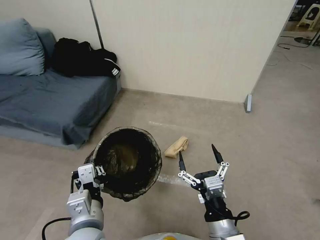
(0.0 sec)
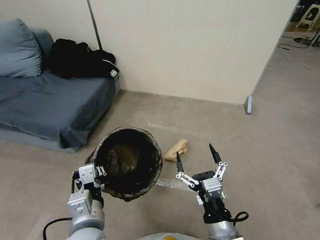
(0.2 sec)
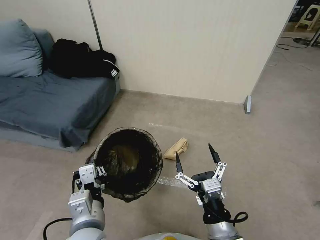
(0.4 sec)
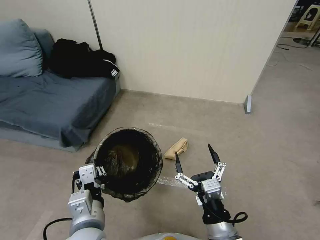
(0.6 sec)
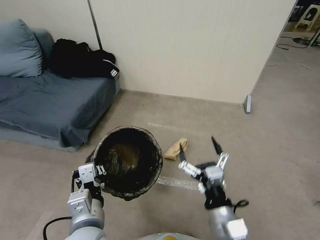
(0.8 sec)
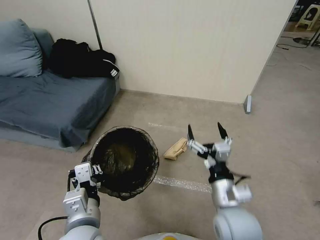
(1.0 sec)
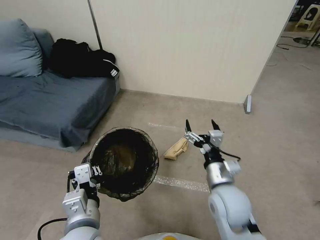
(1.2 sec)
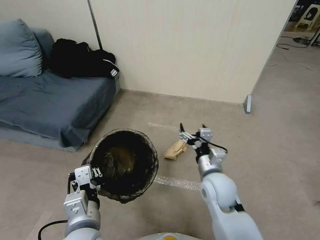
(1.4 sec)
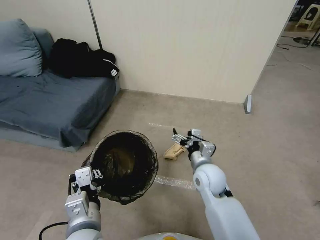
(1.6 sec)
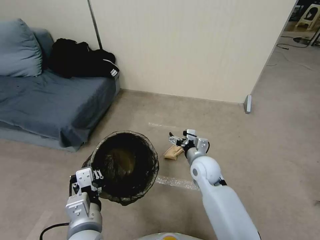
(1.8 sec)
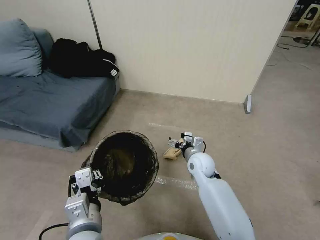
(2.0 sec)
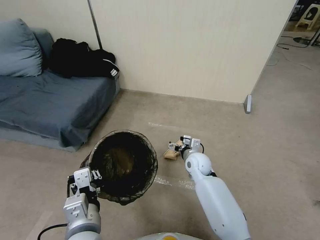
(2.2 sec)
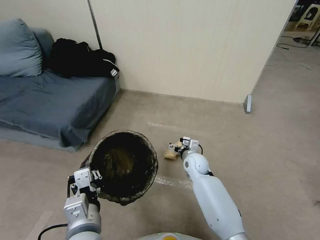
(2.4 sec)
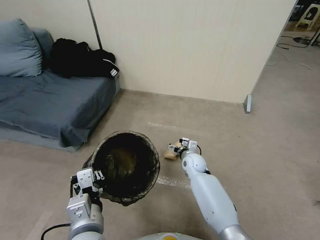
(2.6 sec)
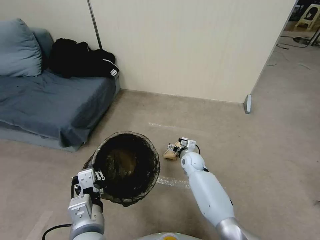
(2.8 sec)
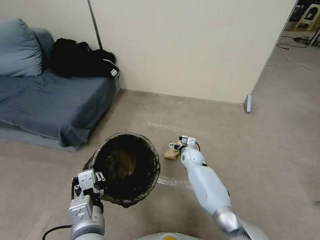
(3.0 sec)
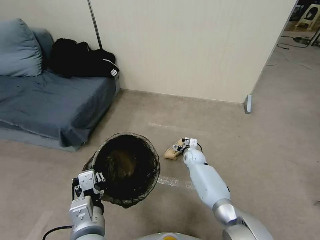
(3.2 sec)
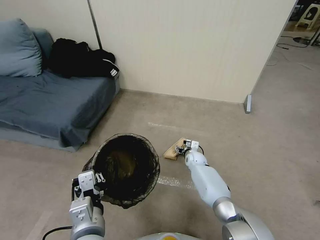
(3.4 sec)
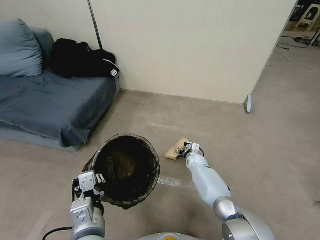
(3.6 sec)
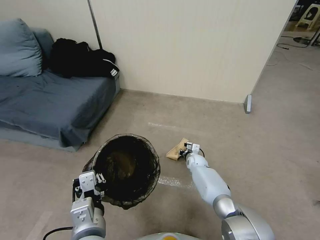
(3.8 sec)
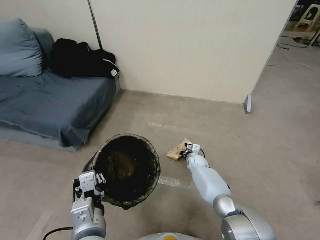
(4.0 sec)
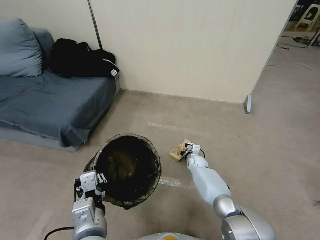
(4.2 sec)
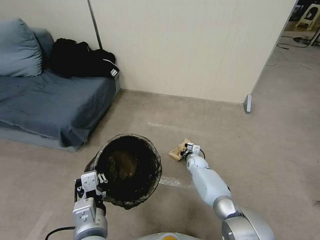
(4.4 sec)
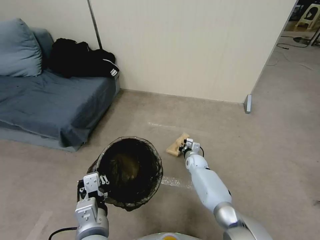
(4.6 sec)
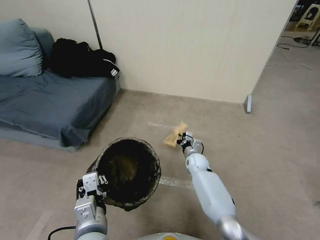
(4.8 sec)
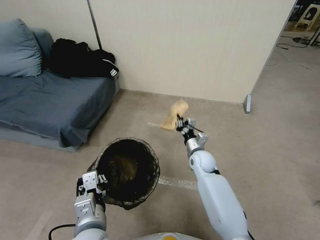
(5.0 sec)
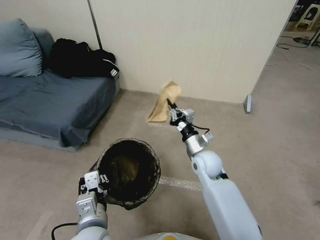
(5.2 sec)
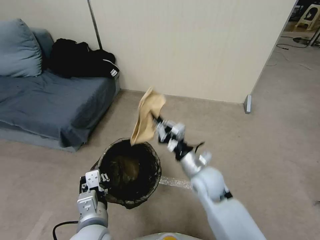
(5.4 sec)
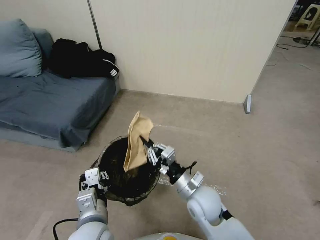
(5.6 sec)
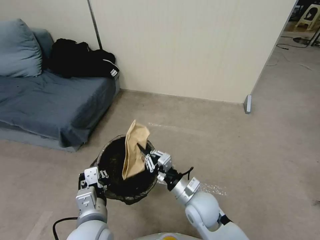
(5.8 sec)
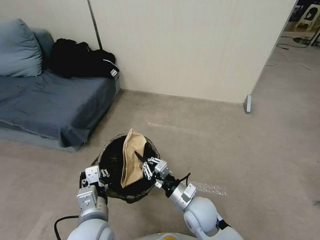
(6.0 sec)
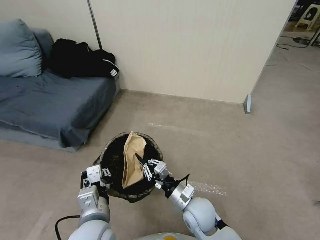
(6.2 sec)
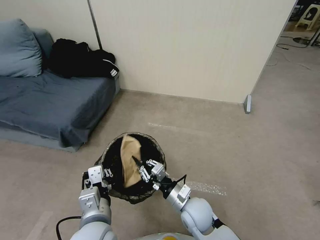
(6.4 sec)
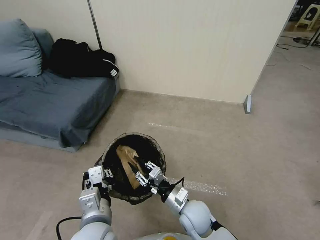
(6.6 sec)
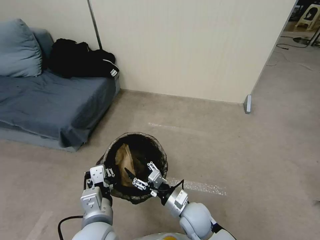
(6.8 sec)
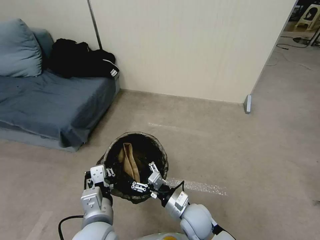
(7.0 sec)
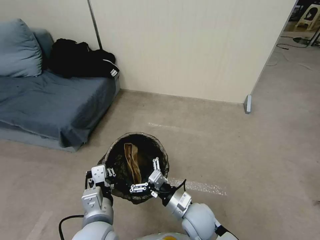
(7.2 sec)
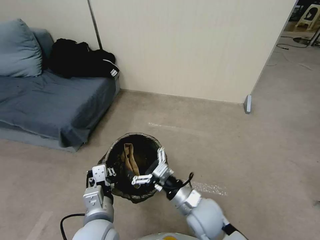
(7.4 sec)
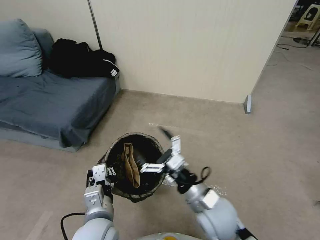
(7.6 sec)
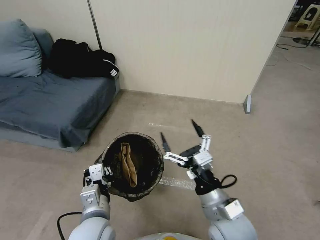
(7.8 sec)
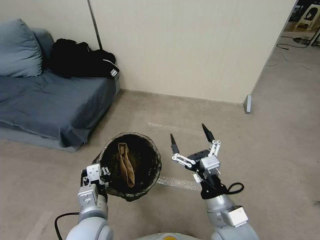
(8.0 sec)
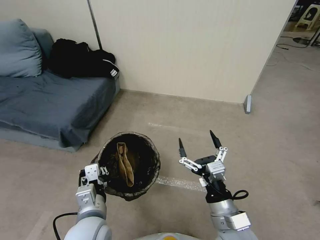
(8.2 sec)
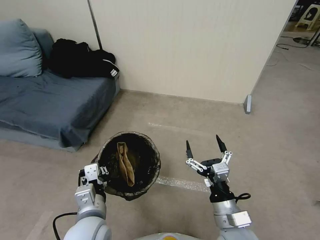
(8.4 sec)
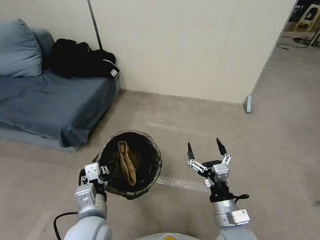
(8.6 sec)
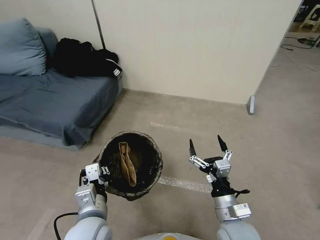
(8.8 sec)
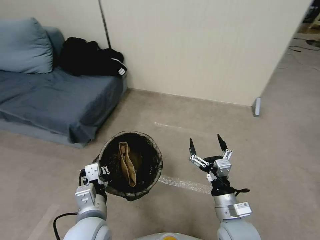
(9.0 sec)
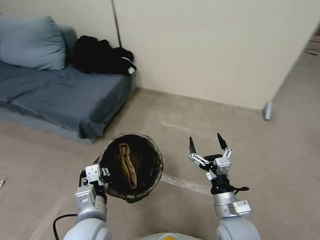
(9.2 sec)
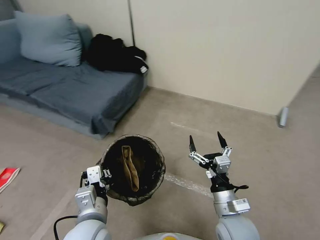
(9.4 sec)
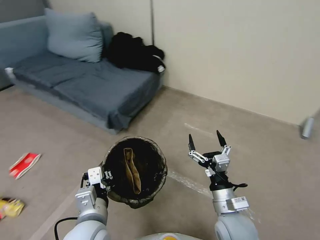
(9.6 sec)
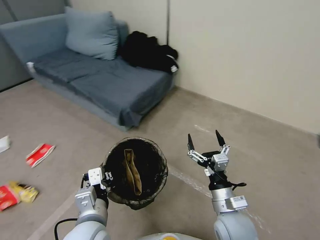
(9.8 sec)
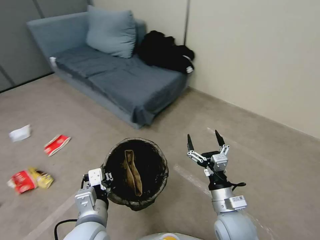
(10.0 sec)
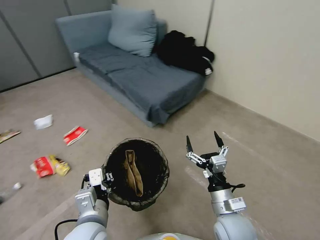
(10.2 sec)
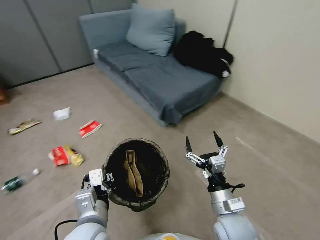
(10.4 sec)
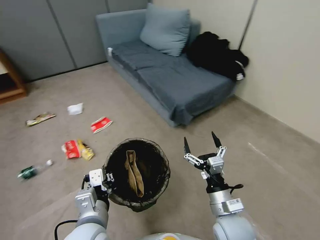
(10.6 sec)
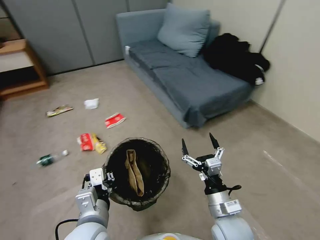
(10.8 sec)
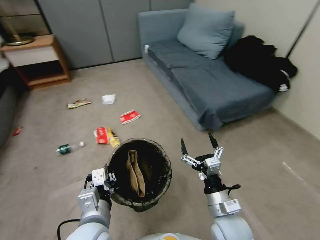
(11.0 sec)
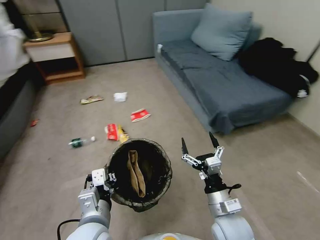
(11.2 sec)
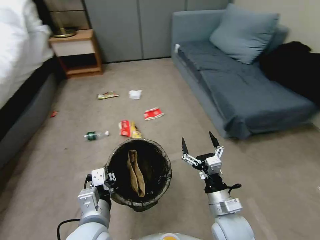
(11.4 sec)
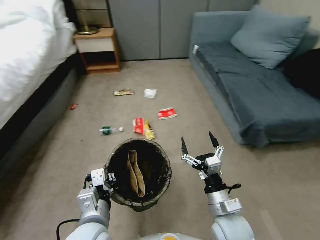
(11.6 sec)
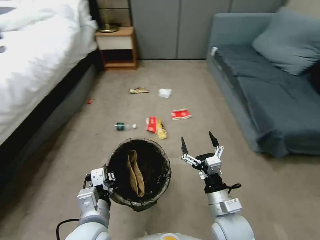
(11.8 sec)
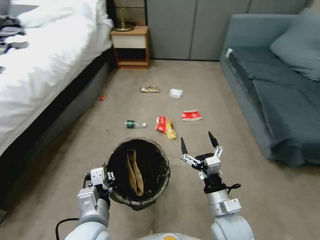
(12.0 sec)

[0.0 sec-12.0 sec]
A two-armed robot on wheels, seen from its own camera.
Task of the whole recording: Pick up the trash bin, then pick up the garbage from the floor and place it into the trash bin.
0.0 sec to 1.6 sec: The right gripper shifts approximately 20 cm forward.
1.6 sec to 3.0 sec: The right gripper goes some 20 cm forward and downward.
3.0 sec to 4.4 sec: The right gripper moves downward, some 5 cm, and closes.
4.4 sec to 6.0 sec: The right gripper moves backward and upward, roughly 30 cm.
6.0 sec to 7.6 sec: The right gripper is displaced upward by some 10 cm, and opens.
7.6 sec to 9.0 sec: The right gripper is displaced to the right by roughly 5 cm.

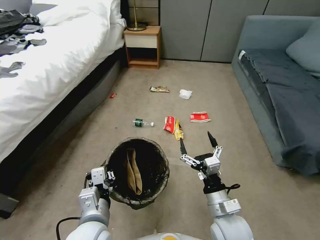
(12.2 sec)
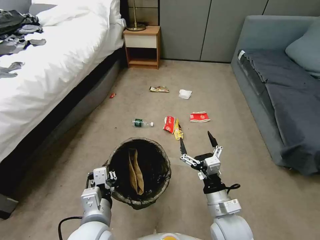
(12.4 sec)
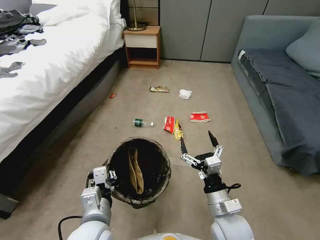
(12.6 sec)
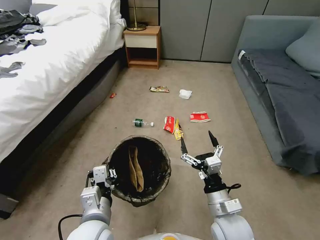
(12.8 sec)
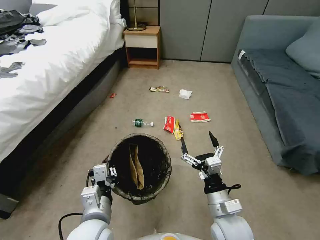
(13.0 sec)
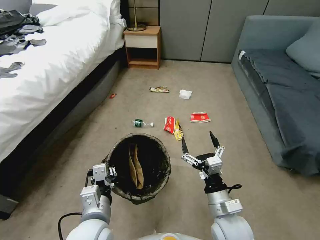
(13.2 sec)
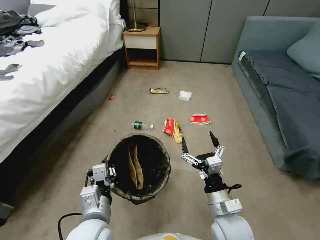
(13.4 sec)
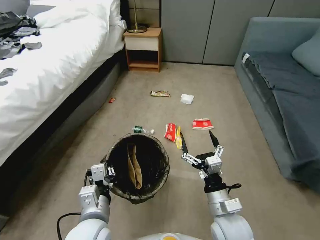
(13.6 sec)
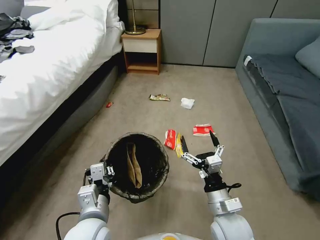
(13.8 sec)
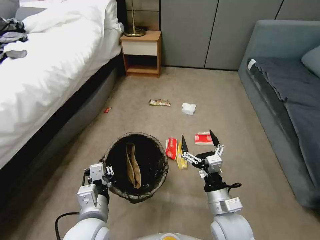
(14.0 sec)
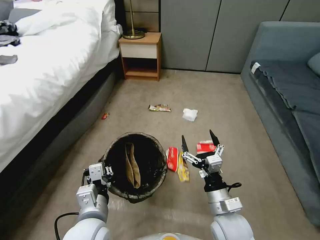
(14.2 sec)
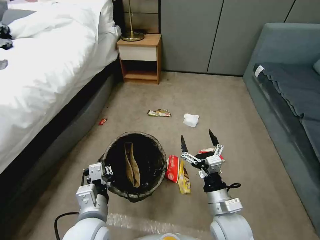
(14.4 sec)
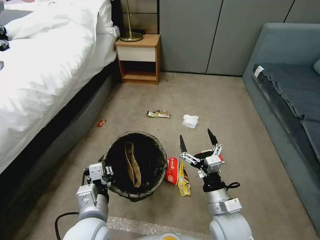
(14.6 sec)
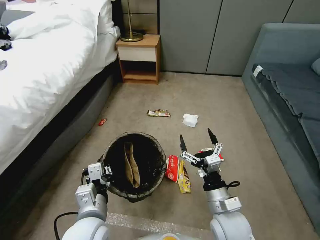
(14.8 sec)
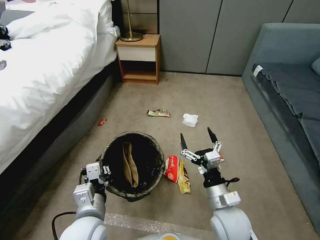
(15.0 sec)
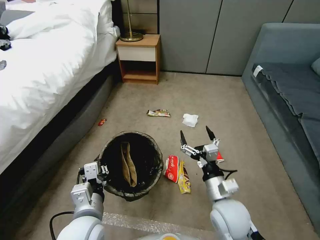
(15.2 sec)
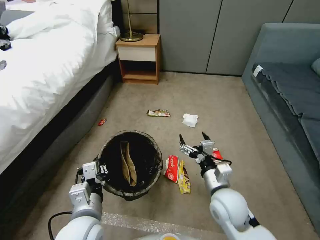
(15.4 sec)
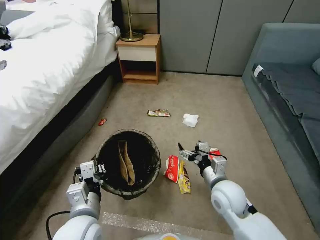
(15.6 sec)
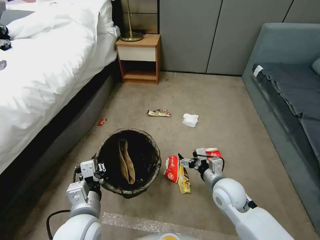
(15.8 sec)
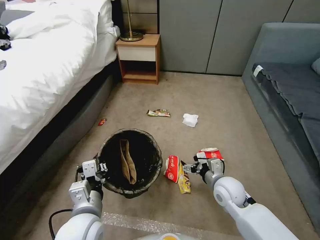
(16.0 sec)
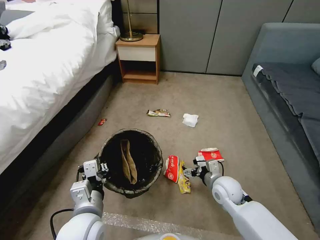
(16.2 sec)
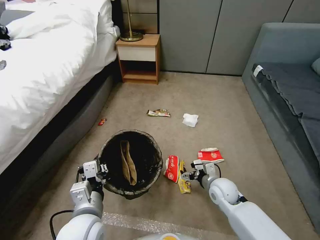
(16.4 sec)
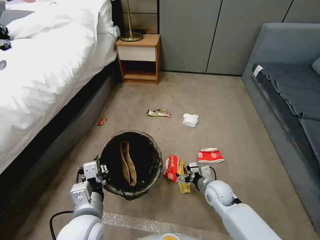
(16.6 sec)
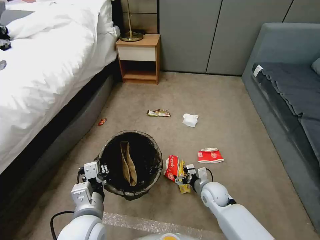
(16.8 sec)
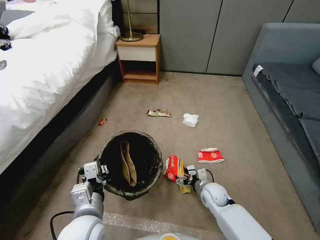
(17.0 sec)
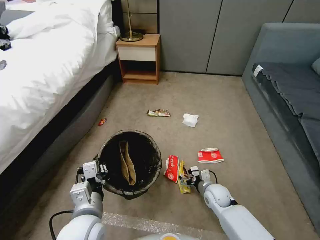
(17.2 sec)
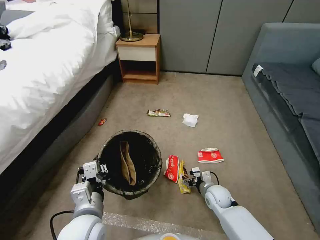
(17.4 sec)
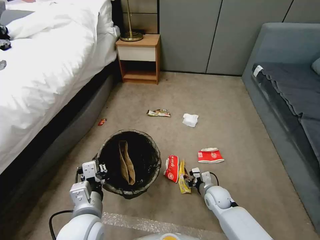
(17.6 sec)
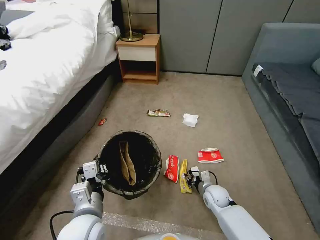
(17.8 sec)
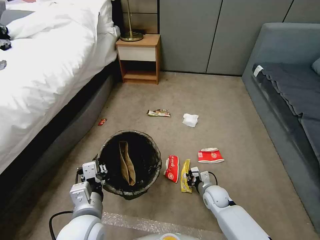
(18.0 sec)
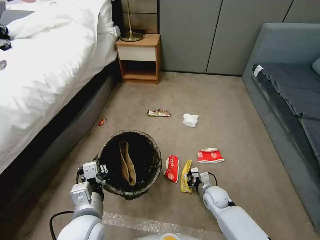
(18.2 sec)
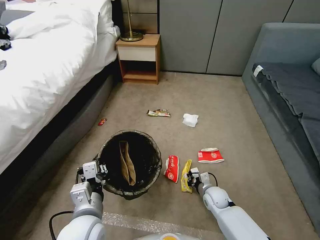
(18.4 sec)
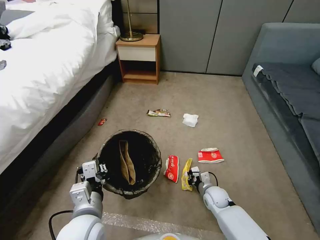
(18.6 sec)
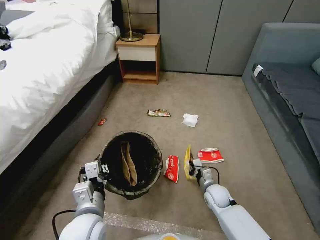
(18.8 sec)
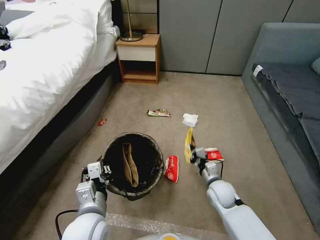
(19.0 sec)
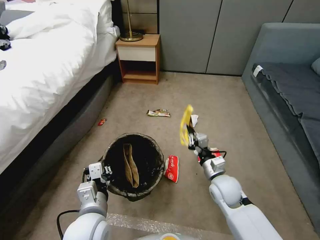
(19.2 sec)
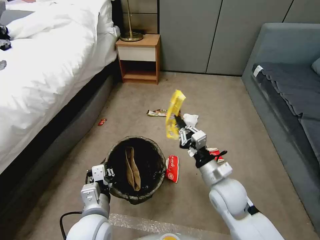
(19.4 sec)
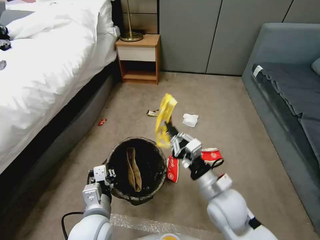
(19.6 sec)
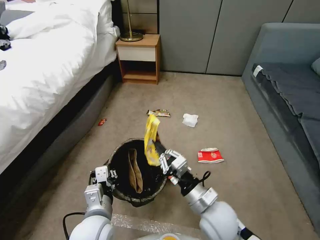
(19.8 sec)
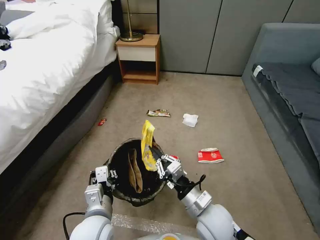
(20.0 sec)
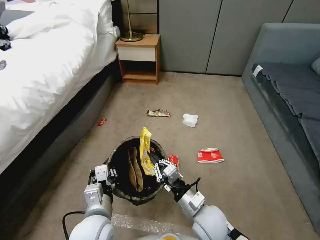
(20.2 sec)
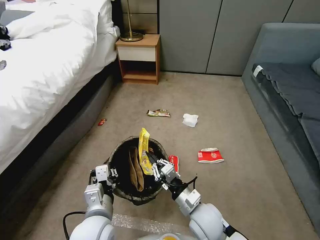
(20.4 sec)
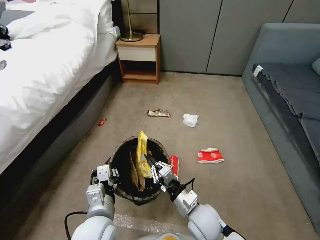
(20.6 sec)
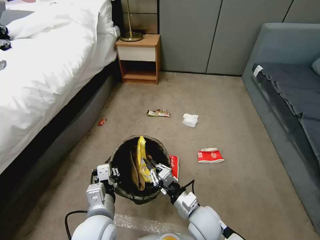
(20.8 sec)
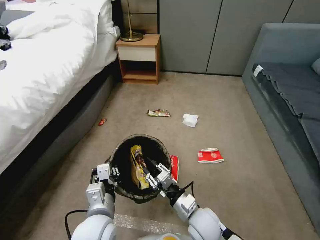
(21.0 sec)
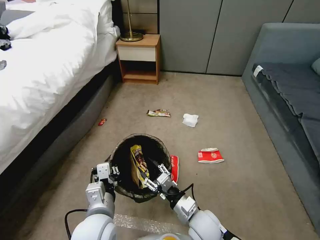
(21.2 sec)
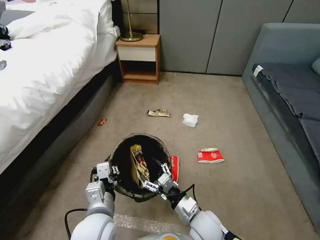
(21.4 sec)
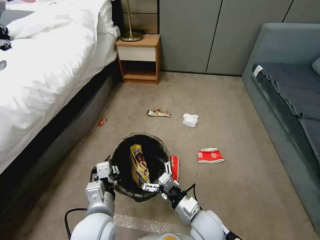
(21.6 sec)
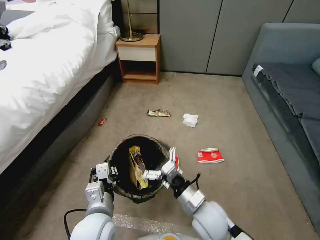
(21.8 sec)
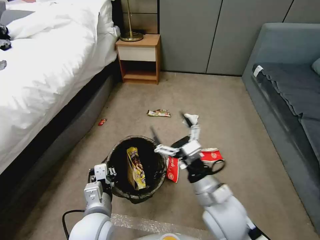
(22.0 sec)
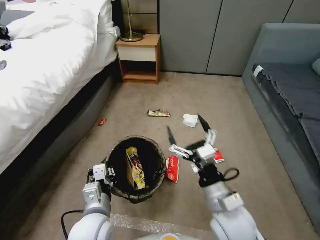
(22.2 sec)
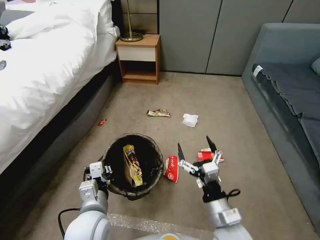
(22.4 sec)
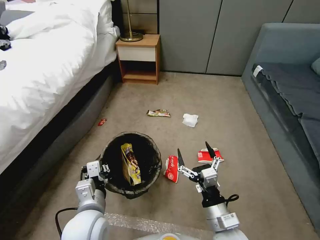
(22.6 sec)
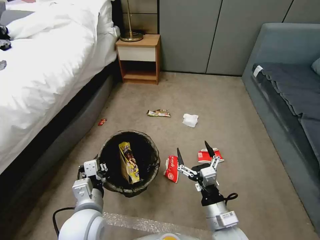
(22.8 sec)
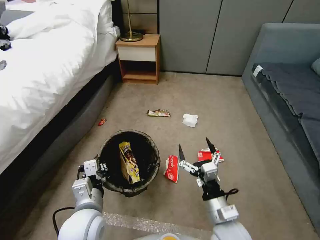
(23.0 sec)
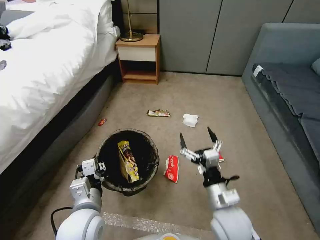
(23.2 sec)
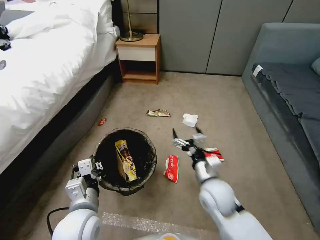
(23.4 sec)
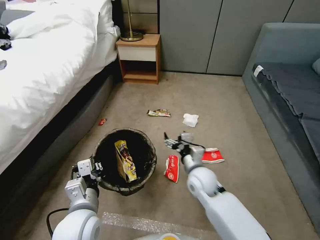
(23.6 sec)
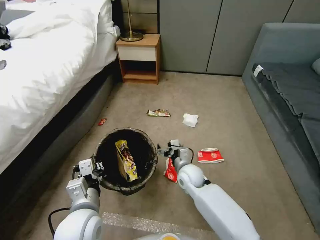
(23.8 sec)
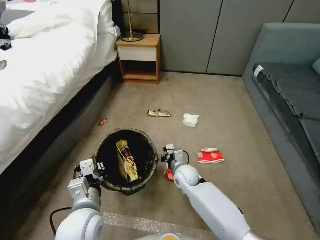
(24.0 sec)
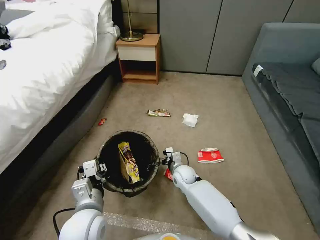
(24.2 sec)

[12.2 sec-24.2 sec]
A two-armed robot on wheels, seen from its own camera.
Task of the whole recording: Pick up the trash bin, then pick up the garbage from the floor and place it into the trash bin.
15.2 sec to 16.6 sec: The right gripper heads downward and forward, covering roughly 15 cm.
16.6 sec to 18.2 sec: The right gripper heads downward, covering roughly 10 cm, and closes its fingers.
18.2 sec to 19.8 sec: The right gripper moves upward and backward, roughly 25 cm.
19.8 sec to 21.2 sec: The right gripper travels downward by some 10 cm, and opens up.
21.2 sec to 22.6 sec: The right gripper is displaced upward and backward by approximately 10 cm, and opens.
22.6 sec to 24.2 sec: The right gripper heads forward and downward, covering approximately 30 cm.
